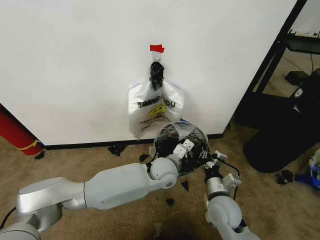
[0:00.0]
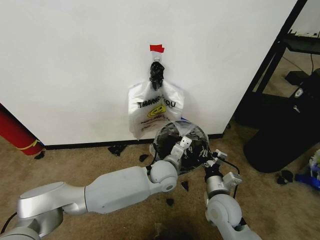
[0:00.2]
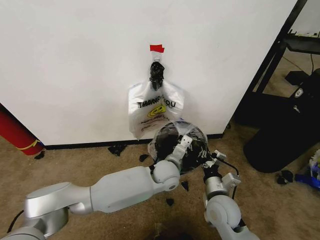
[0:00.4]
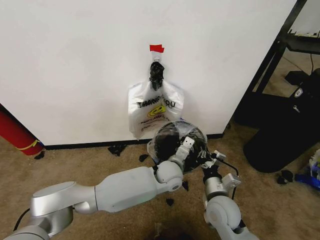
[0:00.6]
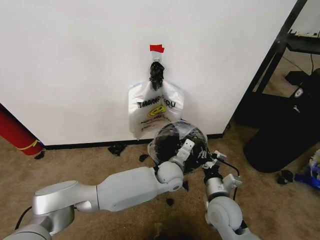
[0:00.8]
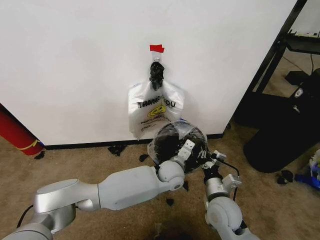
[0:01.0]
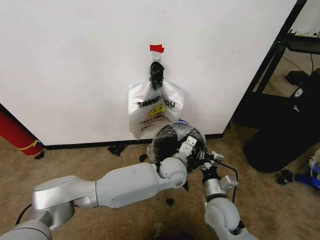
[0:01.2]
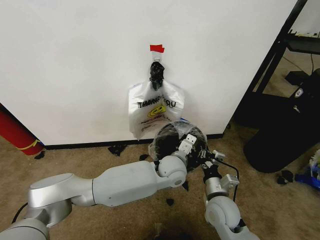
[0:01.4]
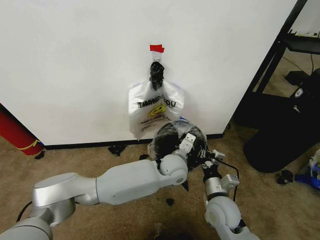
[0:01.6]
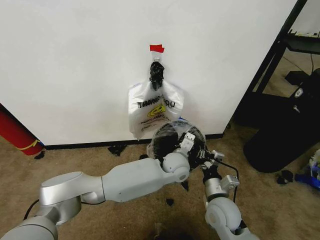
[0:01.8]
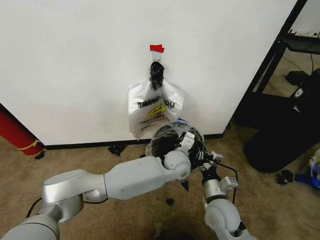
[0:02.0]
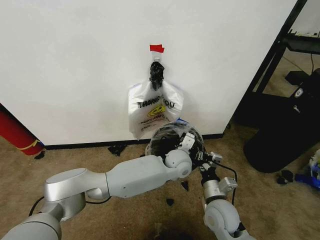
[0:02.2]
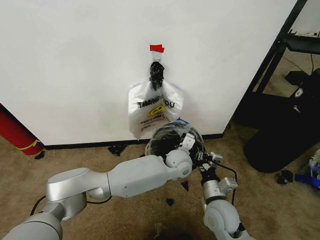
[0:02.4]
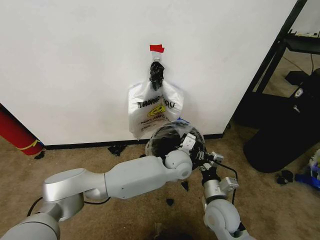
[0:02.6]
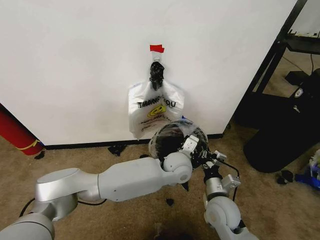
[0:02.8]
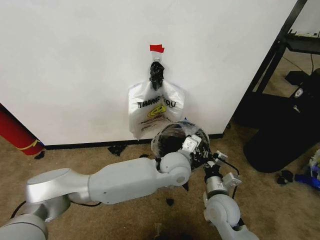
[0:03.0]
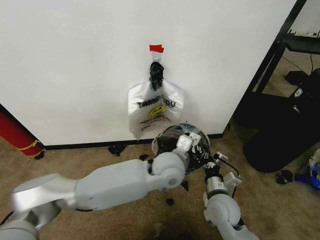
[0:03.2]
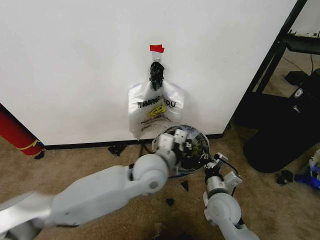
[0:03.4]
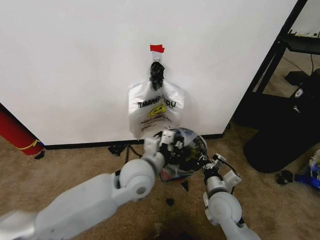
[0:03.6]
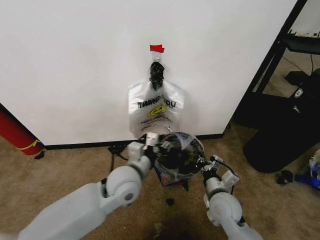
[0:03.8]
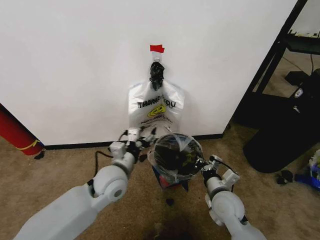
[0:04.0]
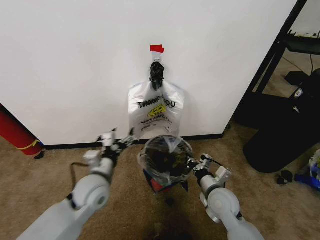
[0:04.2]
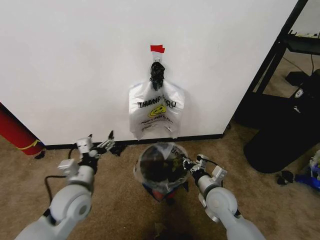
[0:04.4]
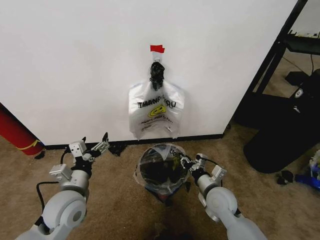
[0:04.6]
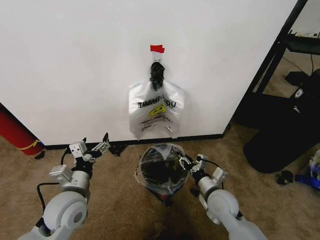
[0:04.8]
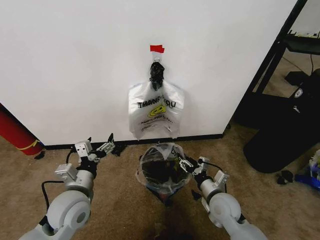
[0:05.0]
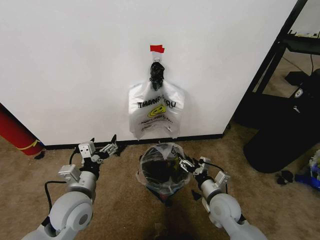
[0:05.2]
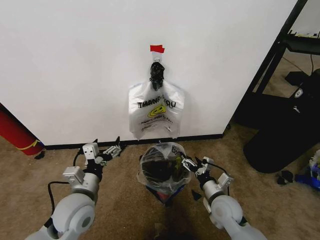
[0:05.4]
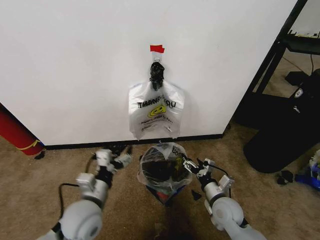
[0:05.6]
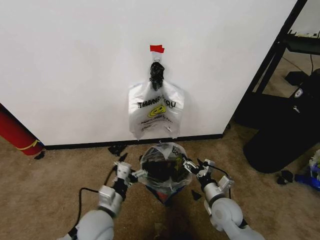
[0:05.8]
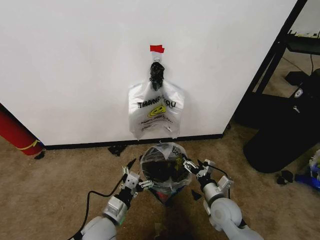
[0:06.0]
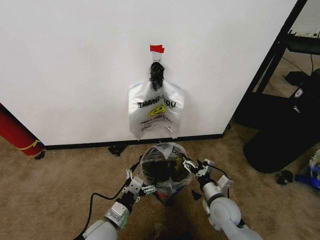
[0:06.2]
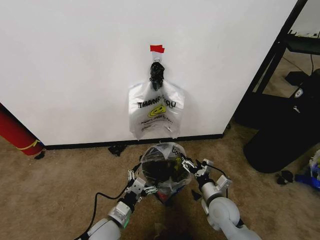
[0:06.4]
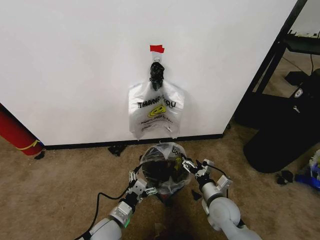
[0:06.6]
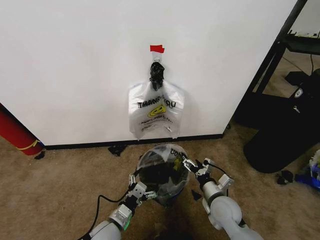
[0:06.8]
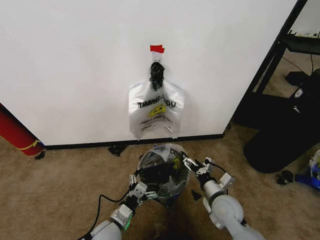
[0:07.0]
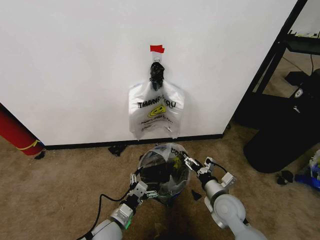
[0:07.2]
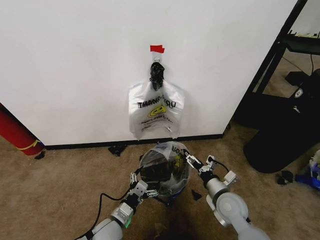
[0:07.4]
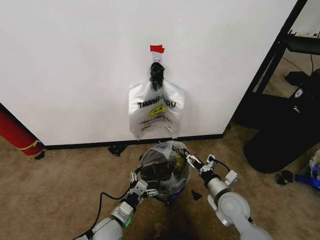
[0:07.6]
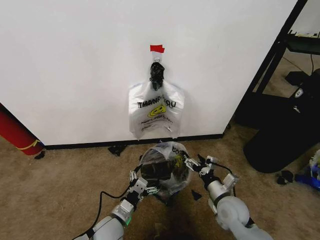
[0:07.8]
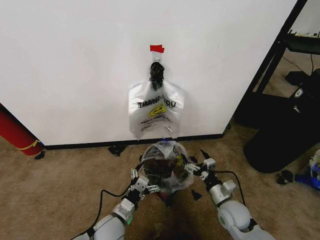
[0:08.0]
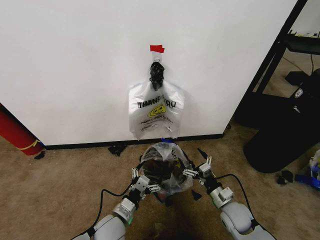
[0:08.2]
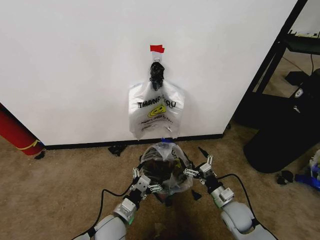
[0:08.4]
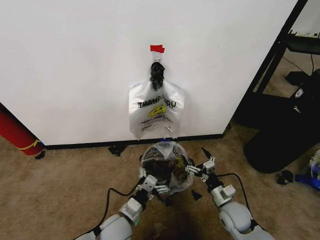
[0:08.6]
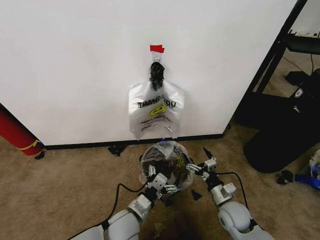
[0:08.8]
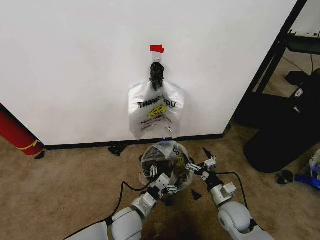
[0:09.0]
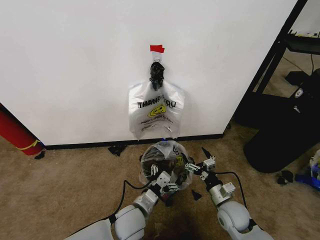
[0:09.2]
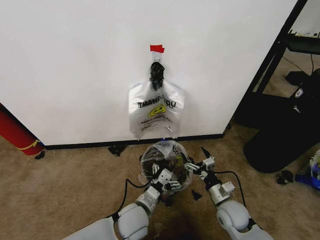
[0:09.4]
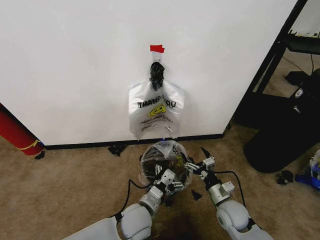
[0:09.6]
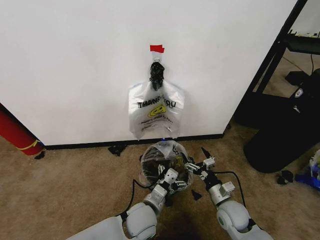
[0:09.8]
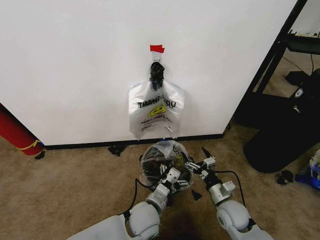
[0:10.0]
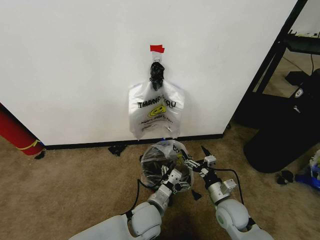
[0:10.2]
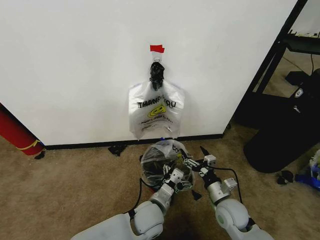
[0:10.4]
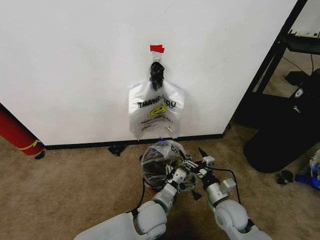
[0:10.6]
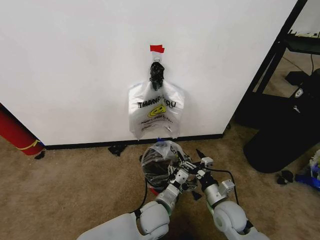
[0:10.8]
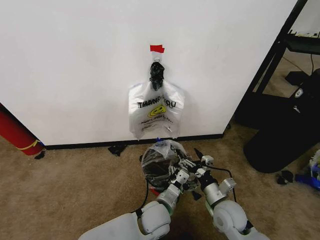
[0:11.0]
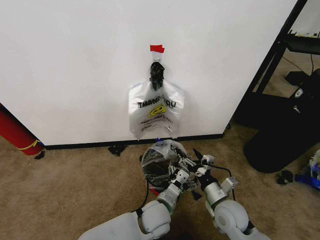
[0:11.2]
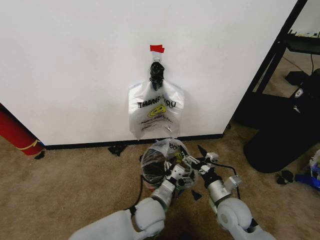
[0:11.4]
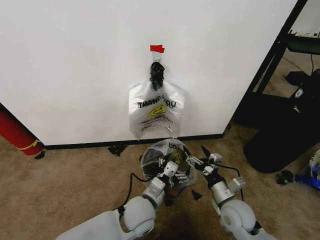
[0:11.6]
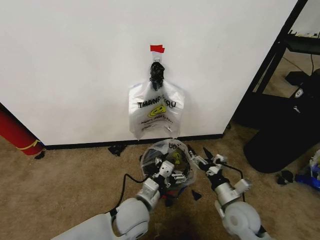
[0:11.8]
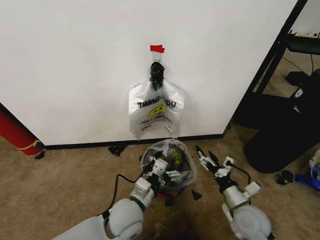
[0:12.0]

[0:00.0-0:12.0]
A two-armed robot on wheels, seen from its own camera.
Task of the whole recording: Pick up the garbage bag from the wall and place it over the trash bin.
0:00.0 to 0:01.6: There are only small adjustments of the grippers.
0:01.6 to 0:03.0: The left gripper ends up some 5 cm from where it was.
0:03.0 to 0:04.4: The left gripper shifts roughly 30 cm to the left, and opens.
0:04.4 to 0:06.0: The left gripper heads downward, to the right and backward, covering some 15 cm; the right gripper opens up.
0:06.0 to 0:07.6: The left gripper travels downward by some 5 cm.
0:07.6 to 0:09.0: The left gripper moves to the right, some 5 cm. Meanwhile the right gripper ends up some 5 cm from where it was.
0:09.0 to 0:10.4: The left gripper travels to the right by some 5 cm.
0:10.4 to 0:12.0: The right gripper shifts by some 5 cm; the left gripper heads to the left and upward, covering about 10 cm.

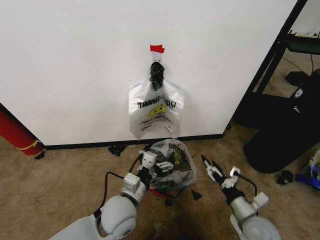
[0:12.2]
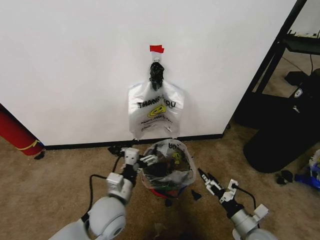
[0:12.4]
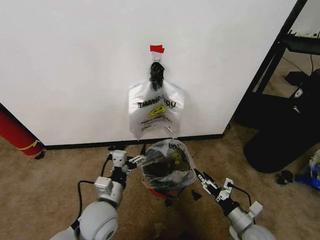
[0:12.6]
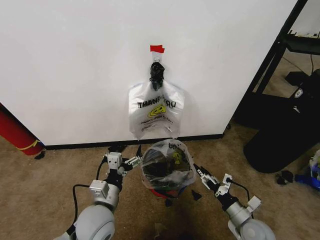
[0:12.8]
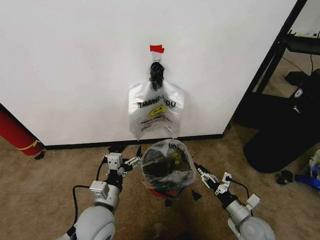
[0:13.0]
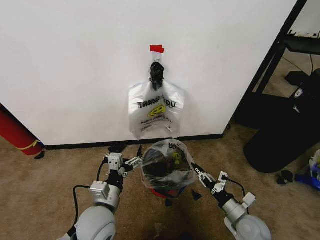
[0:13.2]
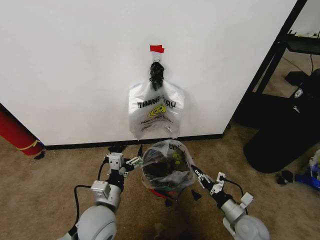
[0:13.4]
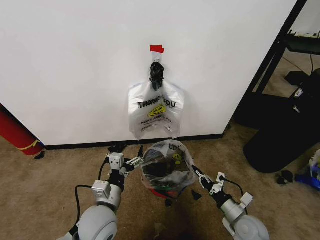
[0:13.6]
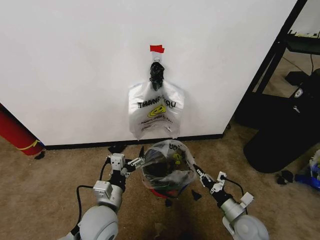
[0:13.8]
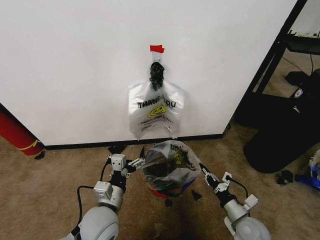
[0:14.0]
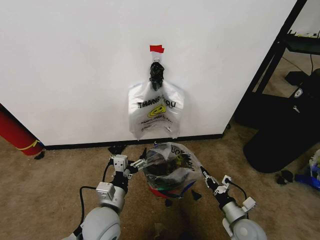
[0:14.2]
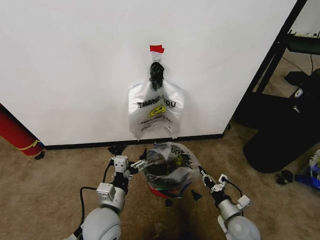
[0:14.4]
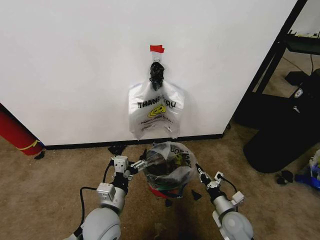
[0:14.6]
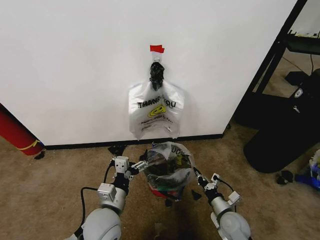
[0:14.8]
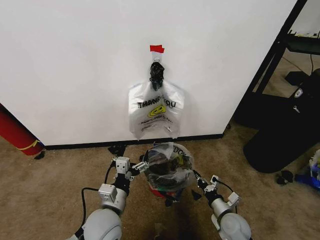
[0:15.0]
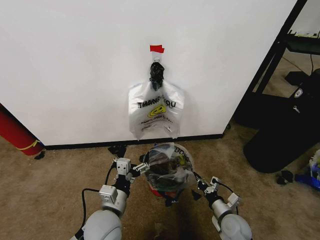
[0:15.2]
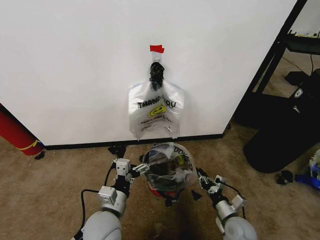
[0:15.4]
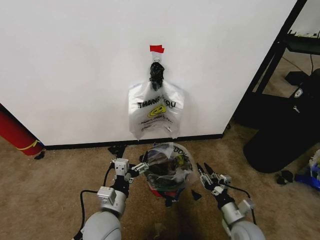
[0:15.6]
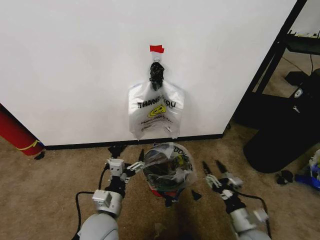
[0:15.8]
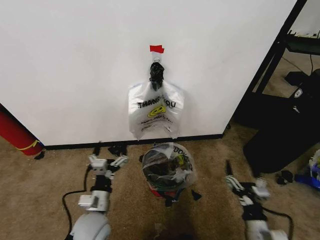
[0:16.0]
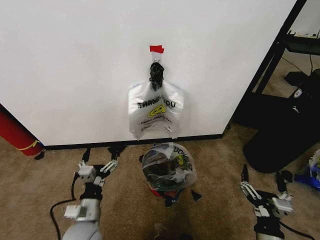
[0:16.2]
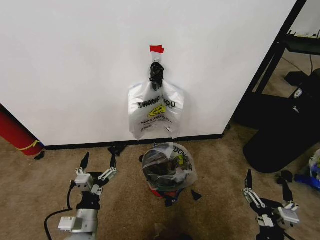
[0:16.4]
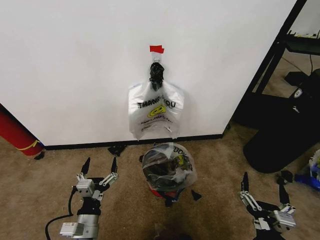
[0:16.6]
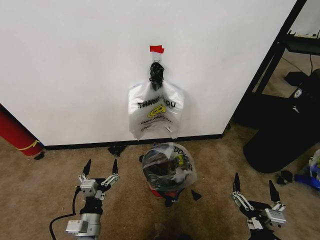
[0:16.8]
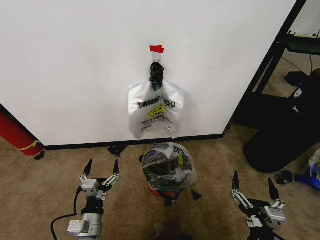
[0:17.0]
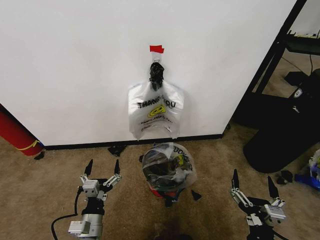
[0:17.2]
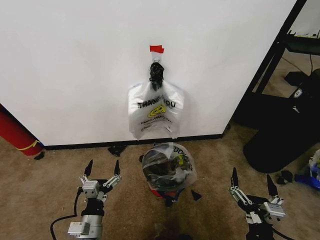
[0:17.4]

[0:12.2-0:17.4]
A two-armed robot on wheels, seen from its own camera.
Task of the whole recording: Pick up the garbage bag from the wall and place it over the trash bin.
0:12.2 to 0:14.0: The right gripper closes its fingers. The left gripper ends up roughly 5 cm from where it was.
0:14.0 to 0:15.6: The right gripper opens.
0:15.6 to 0:17.4: The left gripper moves downward, to the left and backward, about 10 cm; the right gripper shifts some 15 cm backward and upward, and opens.

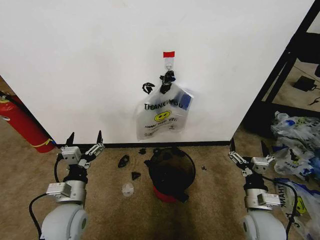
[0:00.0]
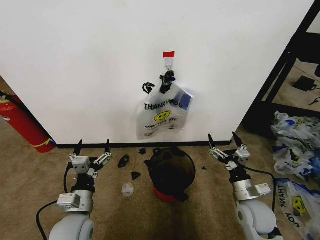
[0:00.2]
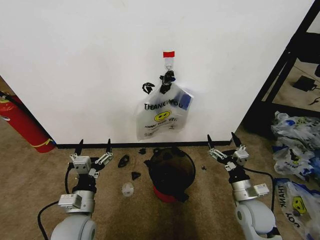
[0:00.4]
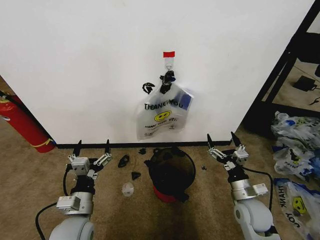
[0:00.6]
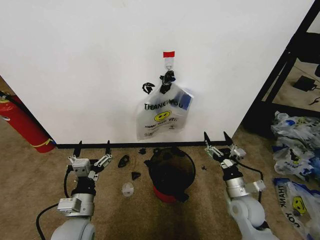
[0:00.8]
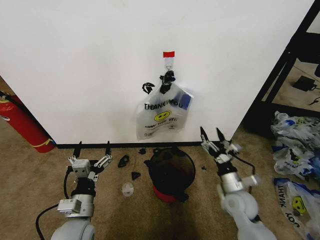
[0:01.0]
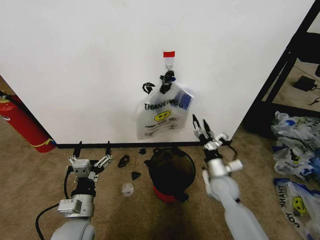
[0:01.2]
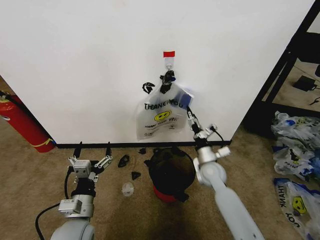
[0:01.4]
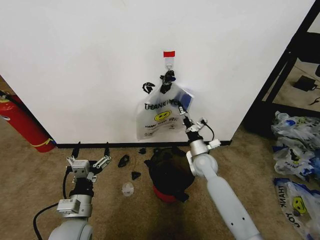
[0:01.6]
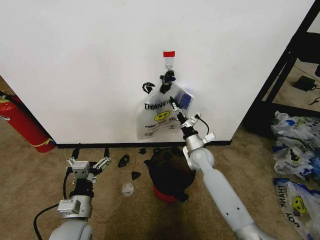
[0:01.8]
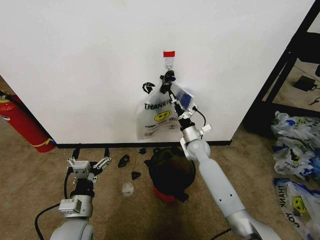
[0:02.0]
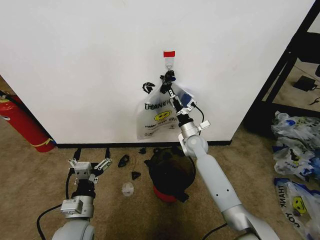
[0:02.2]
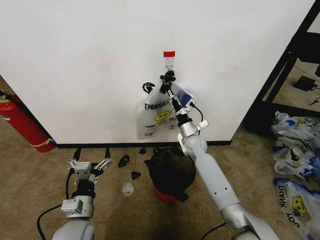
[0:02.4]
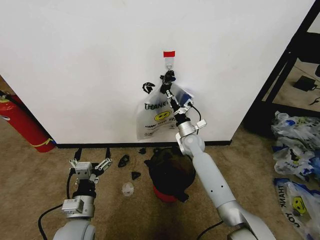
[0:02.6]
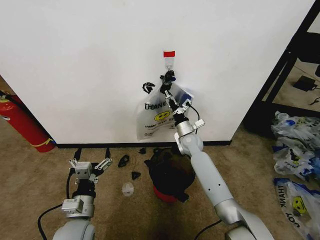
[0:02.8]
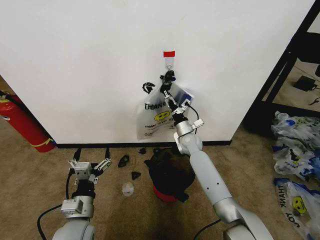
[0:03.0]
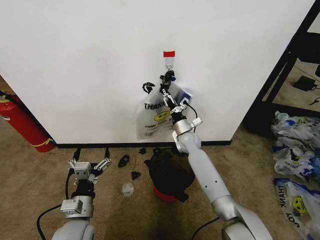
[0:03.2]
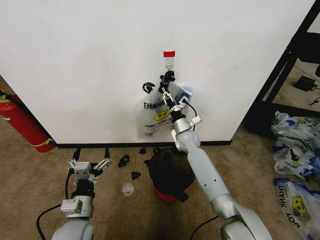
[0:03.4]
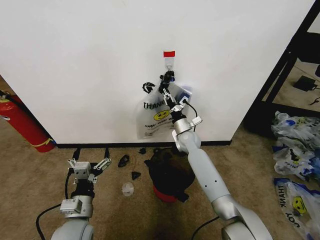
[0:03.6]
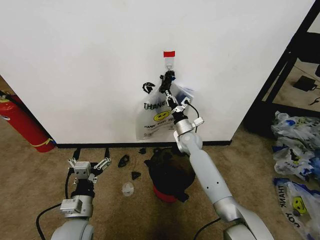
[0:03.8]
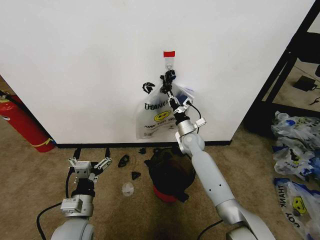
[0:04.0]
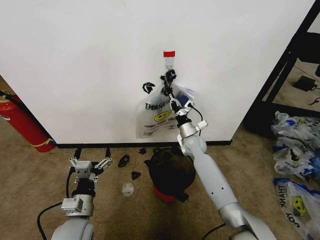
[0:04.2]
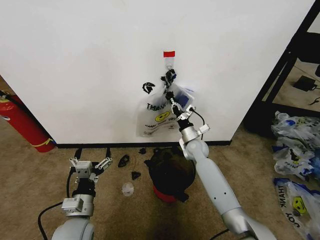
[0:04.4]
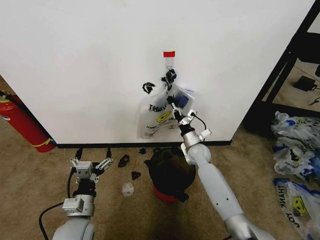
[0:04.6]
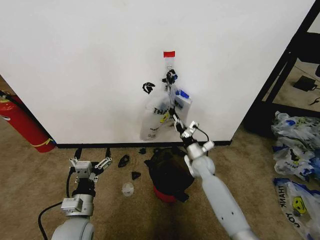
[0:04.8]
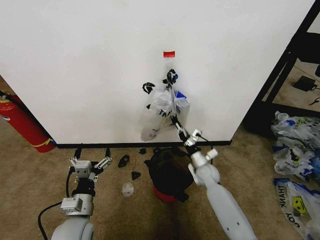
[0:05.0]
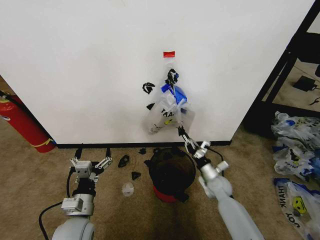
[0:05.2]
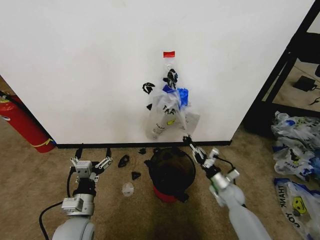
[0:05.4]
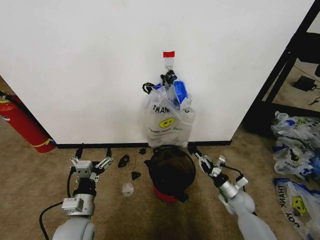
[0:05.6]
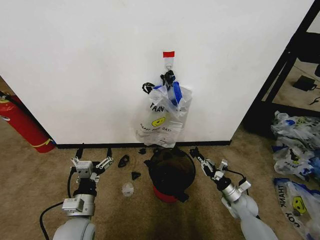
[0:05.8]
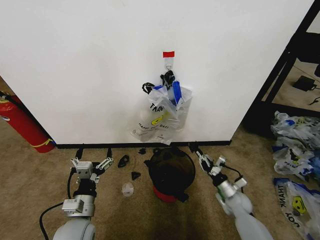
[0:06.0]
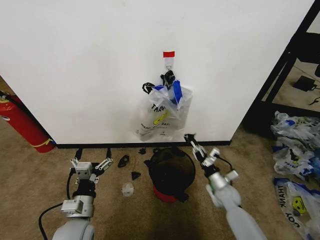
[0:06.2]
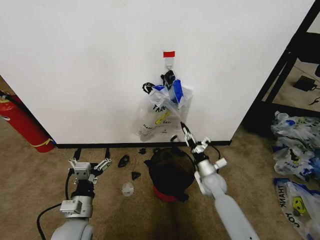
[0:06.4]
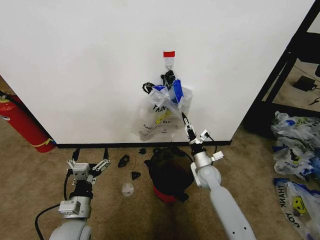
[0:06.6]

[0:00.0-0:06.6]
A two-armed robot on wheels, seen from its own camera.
Task of the whole recording: Pick up the garbage bag from the wall and place it over the trash bin.
0:01.6 to 0:03.2: The right gripper heads forward and to the left, covering about 20 cm.
0:03.2 to 0:05.0: The right gripper closes its fingers.
0:05.0 to 0:06.6: The right gripper is displaced backward, downward and to the right by some 20 cm, and opens its fingers.
